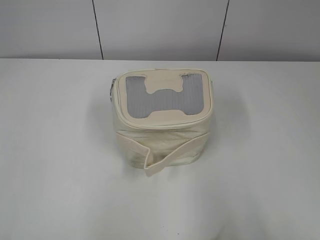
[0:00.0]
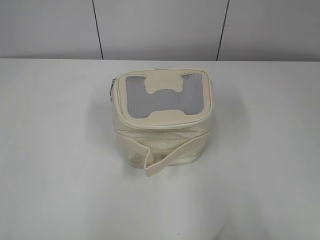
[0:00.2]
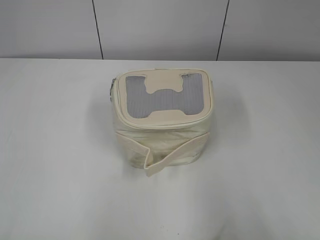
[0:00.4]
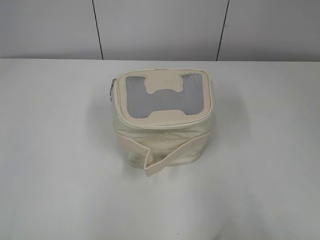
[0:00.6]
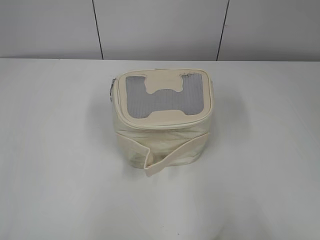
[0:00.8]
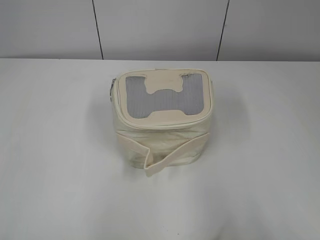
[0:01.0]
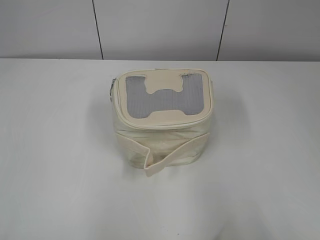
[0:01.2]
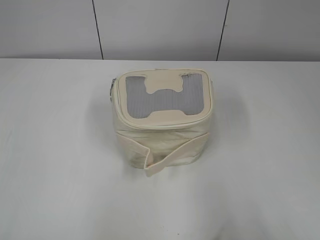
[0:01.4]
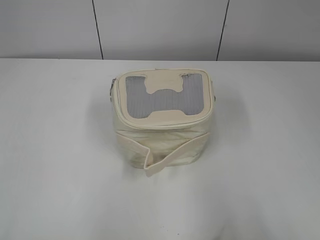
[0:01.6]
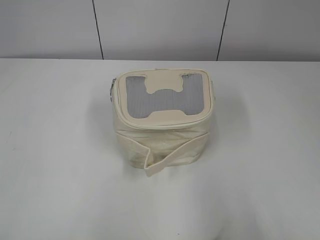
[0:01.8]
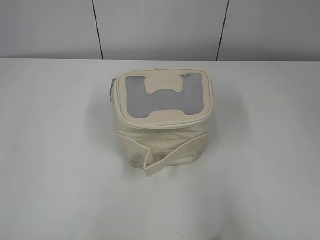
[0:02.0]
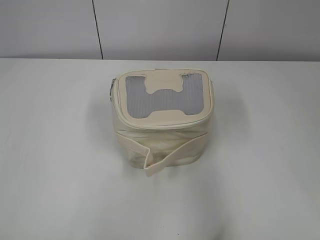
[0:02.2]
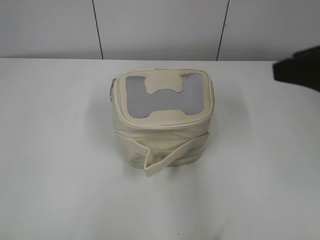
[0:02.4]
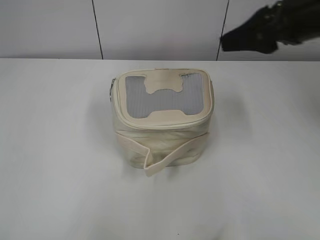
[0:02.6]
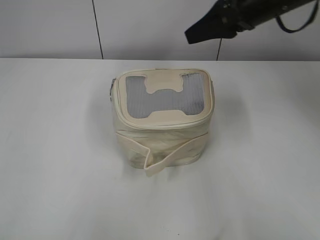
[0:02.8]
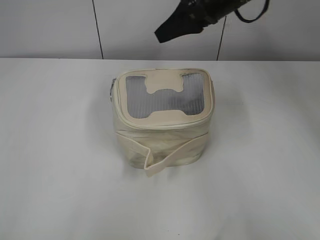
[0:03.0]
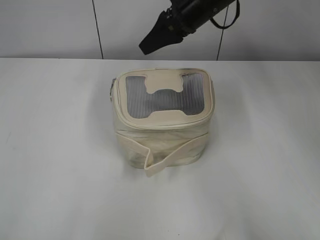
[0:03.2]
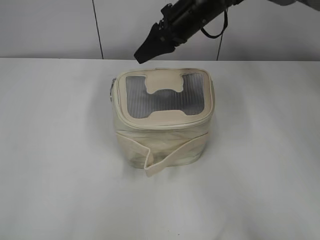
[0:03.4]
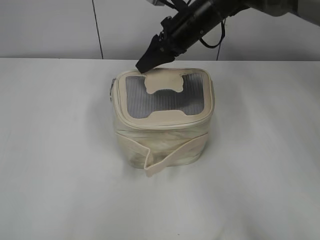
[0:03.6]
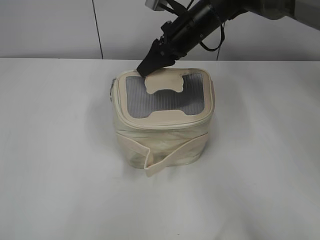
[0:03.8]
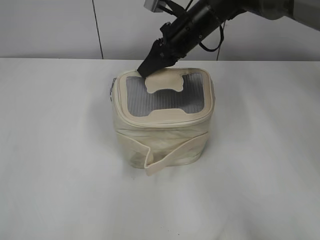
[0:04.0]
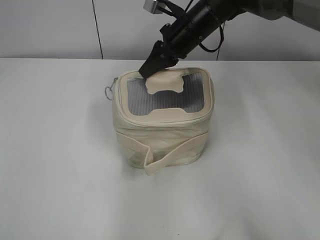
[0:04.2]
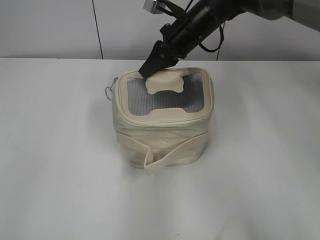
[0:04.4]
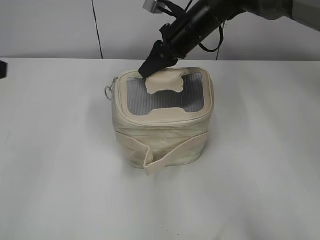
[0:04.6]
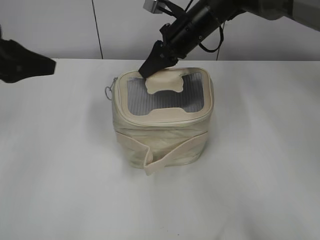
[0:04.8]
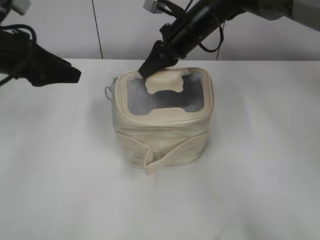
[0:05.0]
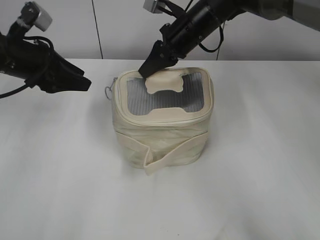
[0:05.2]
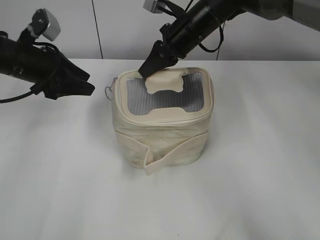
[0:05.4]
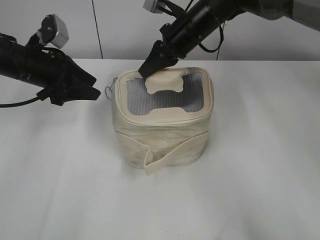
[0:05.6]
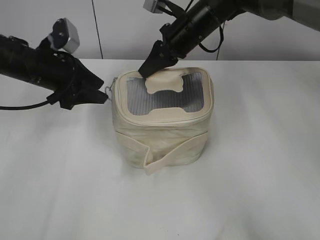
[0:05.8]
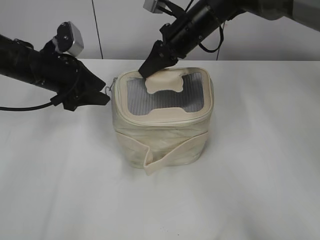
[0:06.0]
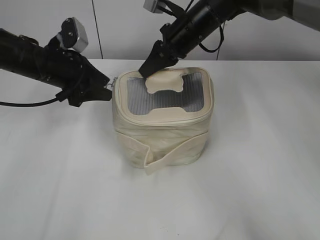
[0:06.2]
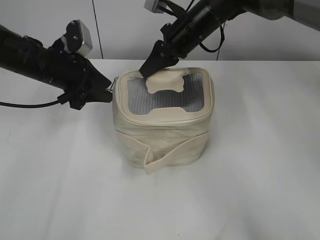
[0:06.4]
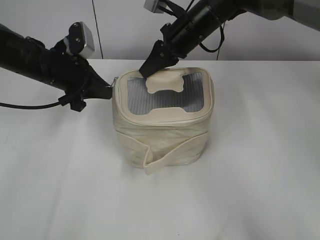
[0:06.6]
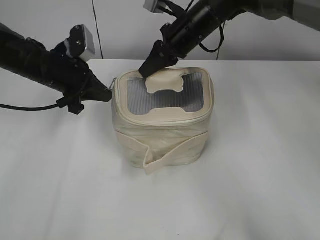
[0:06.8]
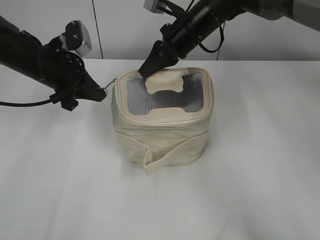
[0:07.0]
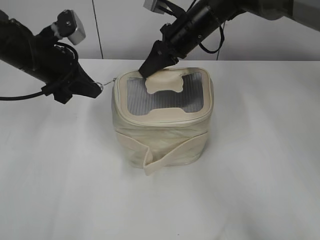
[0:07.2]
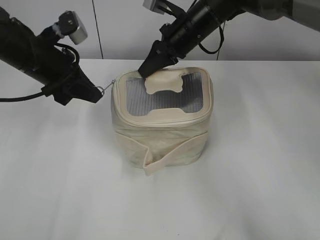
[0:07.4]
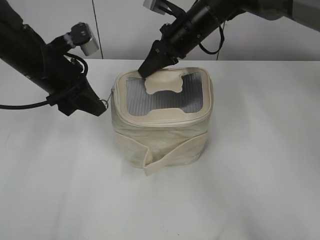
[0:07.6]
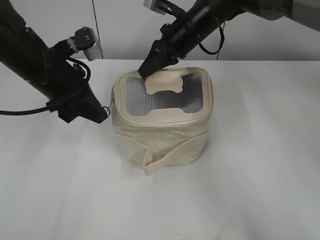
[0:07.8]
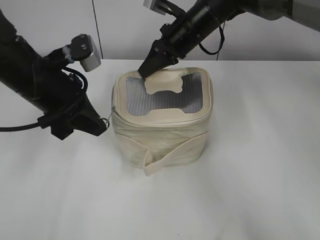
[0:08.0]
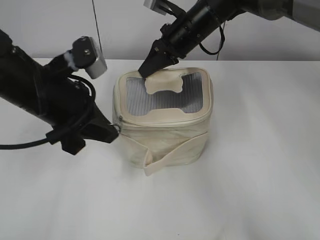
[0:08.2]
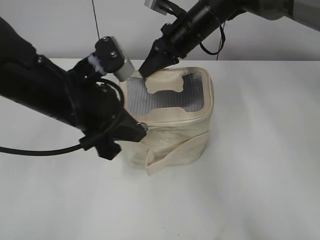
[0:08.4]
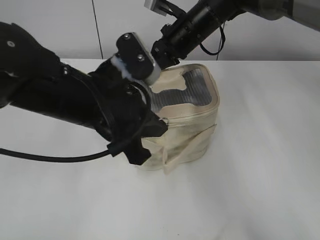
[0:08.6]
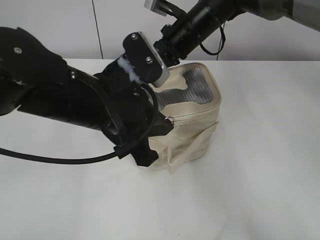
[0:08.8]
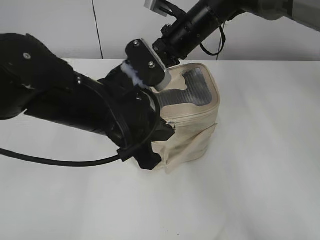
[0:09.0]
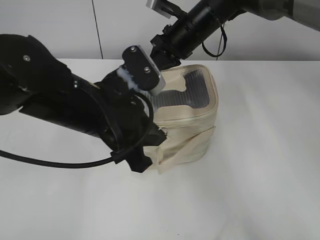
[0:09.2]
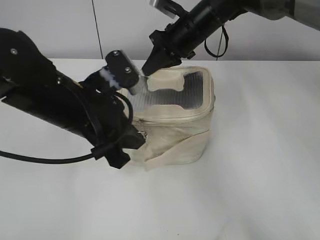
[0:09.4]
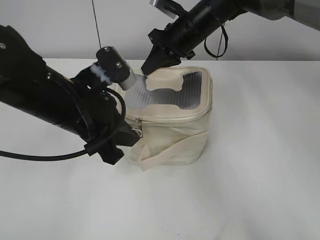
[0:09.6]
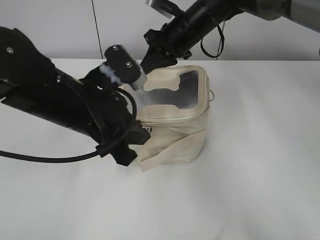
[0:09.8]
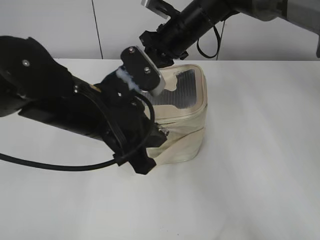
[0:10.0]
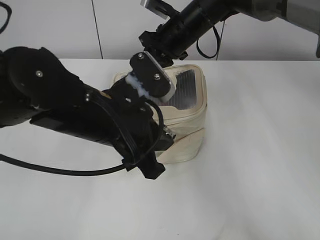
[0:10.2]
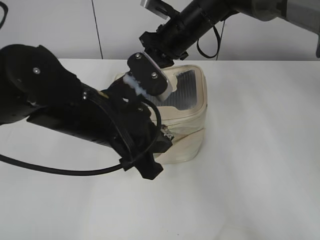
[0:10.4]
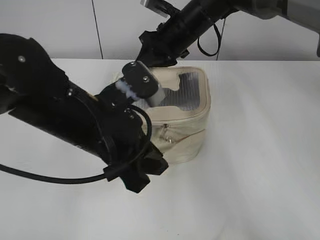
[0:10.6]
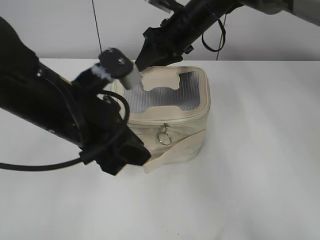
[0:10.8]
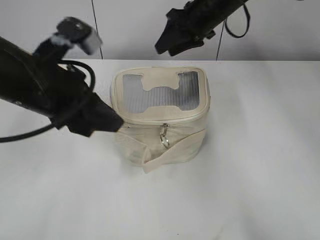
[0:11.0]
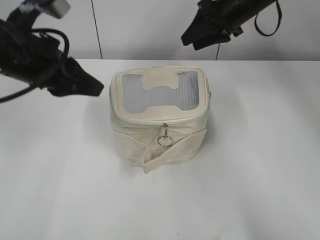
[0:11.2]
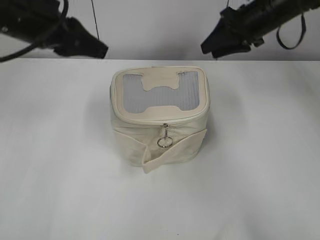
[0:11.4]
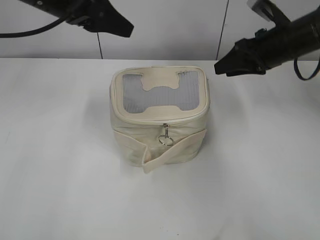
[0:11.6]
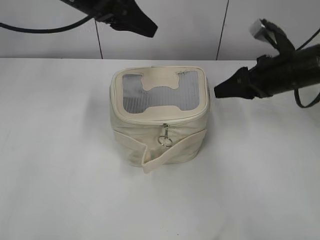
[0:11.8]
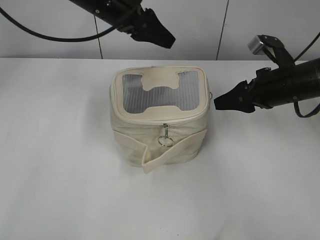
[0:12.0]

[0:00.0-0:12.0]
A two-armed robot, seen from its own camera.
Step, 0:00.0 to 0:10.4: Zip up the bag with your left hand.
0:01.6 to 0:03.0: The right gripper moves forward and to the left, about 50 cm.
0:03.0 to 0:04.4: The right gripper goes some 10 cm downward and to the left, and closes. The left gripper is displaced forward by approximately 10 cm.
0:04.4 to 0:06.0: The left gripper shifts about 30 cm forward and downward.
0:06.0 to 0:07.6: The left gripper moves about 5 cm, and closes up.
0:07.6 to 0:09.0: The left gripper moves backward and to the right, roughly 15 cm.
0:09.0 to 0:10.4: The grippers make only small movements.
0:10.4 to 0:12.0: The left gripper goes about 20 cm forward, and opens. Meanwhile the right gripper moves to the right and backward, approximately 20 cm, and opens its fingers.

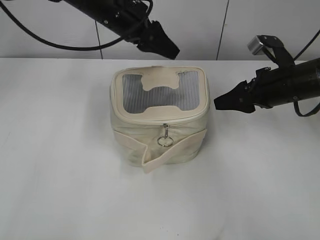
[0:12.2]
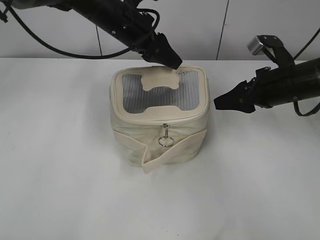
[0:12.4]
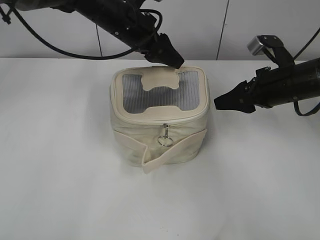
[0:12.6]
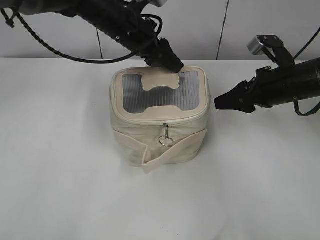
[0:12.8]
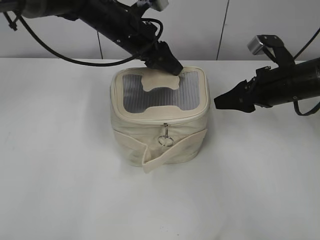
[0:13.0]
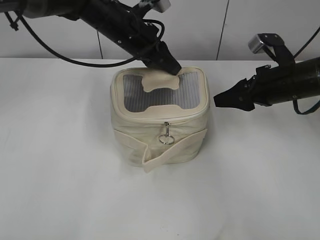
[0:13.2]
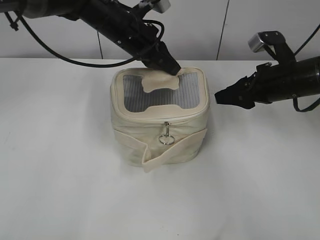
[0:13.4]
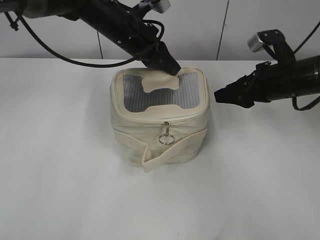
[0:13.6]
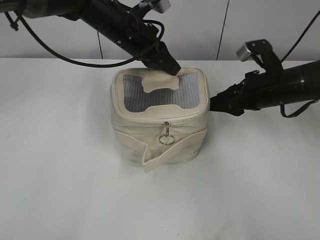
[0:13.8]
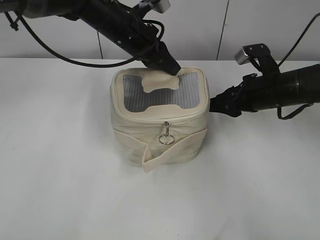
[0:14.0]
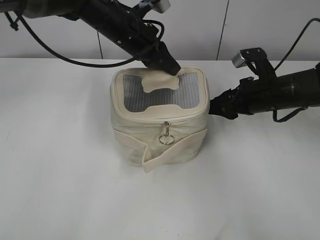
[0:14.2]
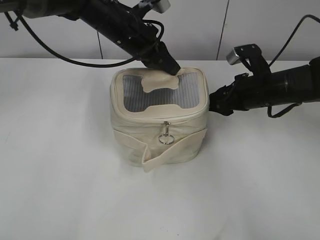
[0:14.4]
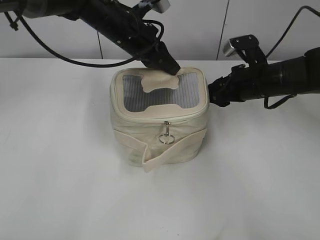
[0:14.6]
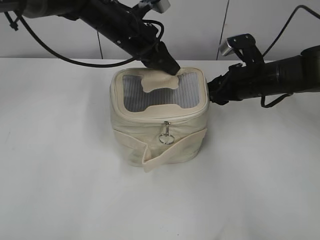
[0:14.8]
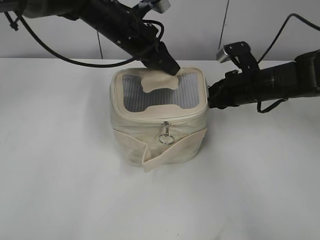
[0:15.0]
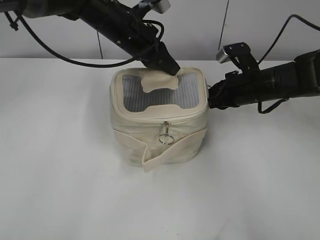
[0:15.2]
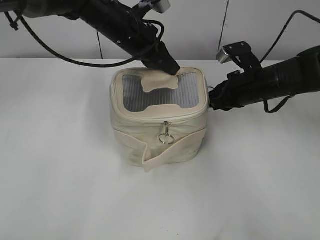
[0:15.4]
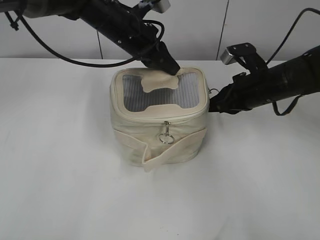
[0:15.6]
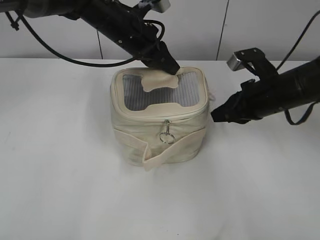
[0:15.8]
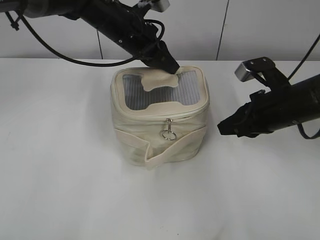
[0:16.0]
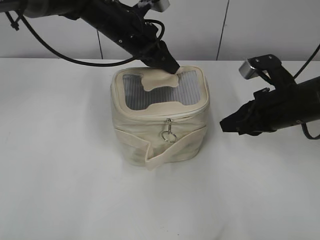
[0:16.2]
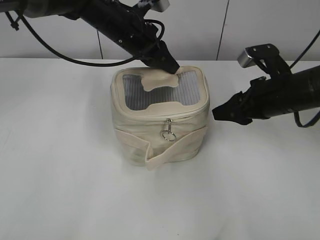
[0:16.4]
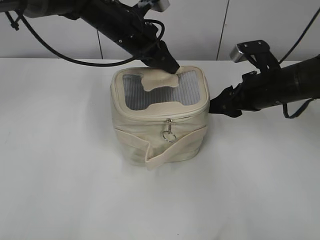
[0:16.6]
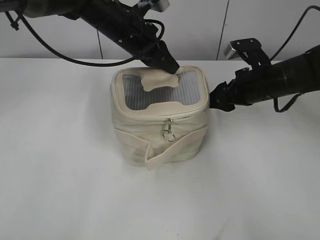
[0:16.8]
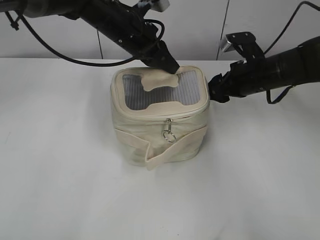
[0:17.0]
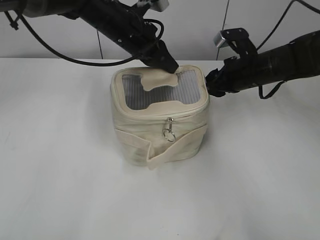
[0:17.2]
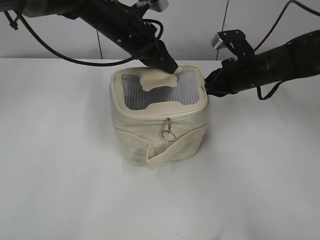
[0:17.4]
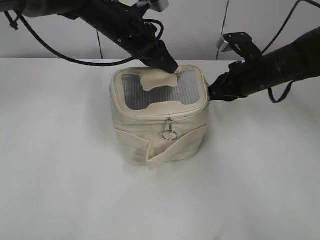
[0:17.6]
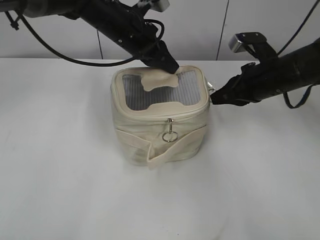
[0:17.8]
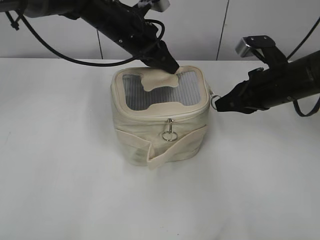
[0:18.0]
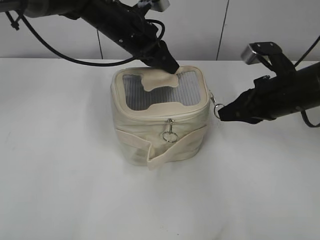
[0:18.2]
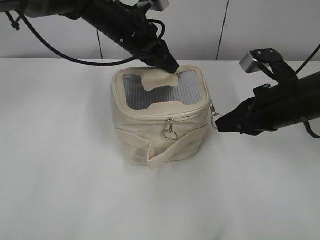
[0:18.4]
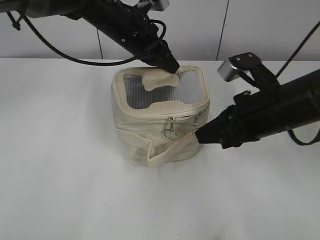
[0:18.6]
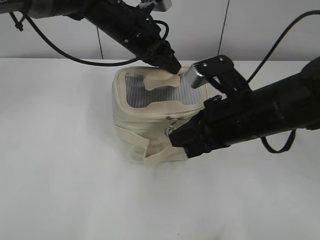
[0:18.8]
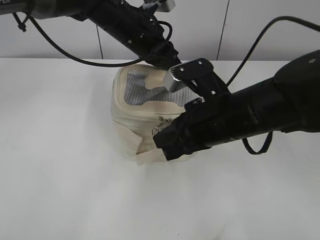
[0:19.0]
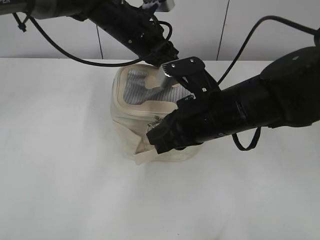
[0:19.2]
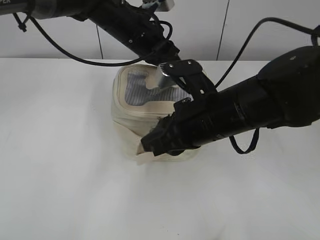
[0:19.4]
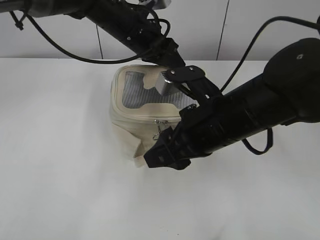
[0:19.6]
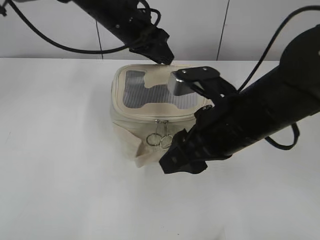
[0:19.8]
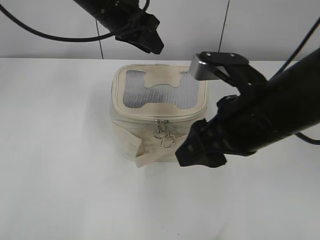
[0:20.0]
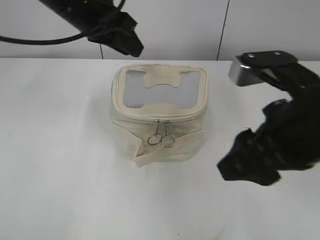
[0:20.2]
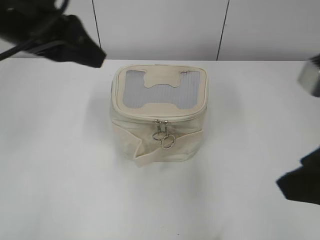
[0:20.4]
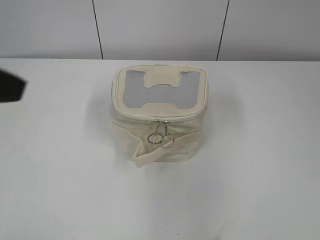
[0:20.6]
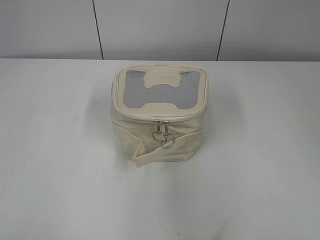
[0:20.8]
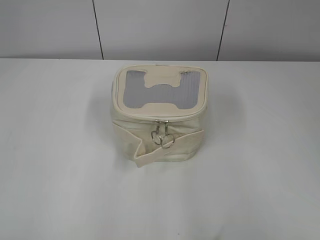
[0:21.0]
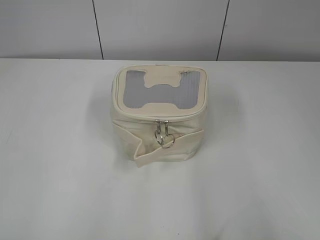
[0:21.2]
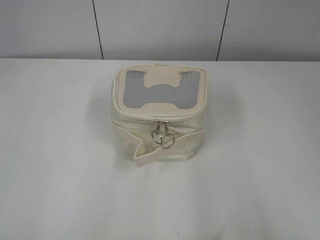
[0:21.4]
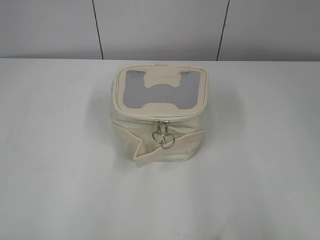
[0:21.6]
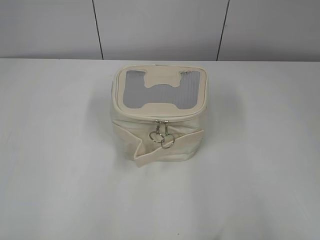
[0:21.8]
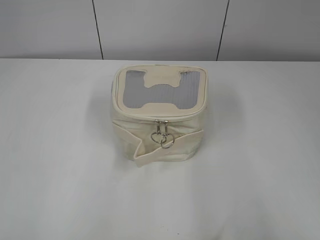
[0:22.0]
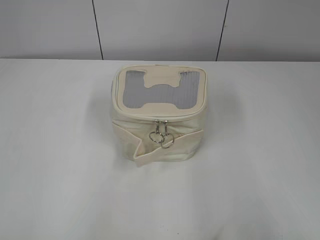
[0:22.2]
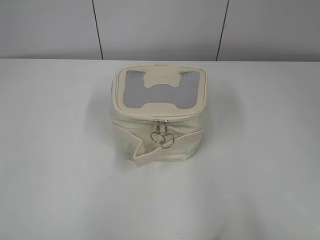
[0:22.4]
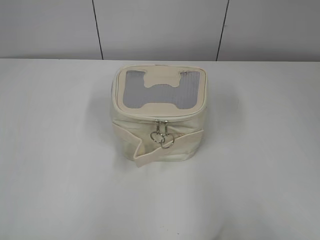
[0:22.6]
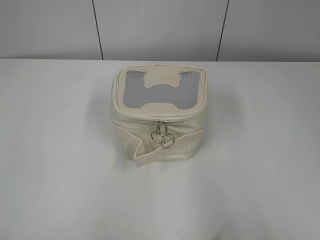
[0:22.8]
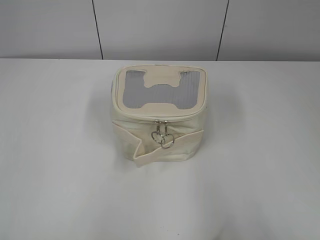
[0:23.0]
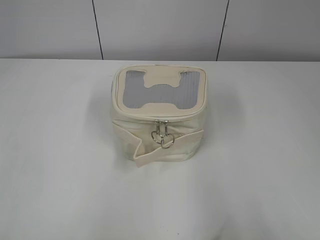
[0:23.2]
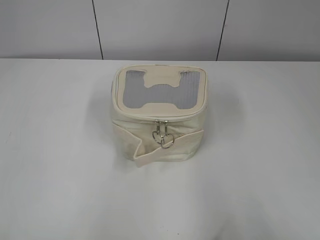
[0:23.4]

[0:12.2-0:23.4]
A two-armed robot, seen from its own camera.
Step, 0:12.2 to 0:19.2: Zip up the bag with your right hand.
Step, 0:19.6 to 0:19.8: Hold the bag with your left hand.
0:12.2 to 0:13.8: The left gripper closes its fingers.
0:13.8 to 0:15.4: The right gripper closes its fingers.
0:15.4 to 0:17.0: The right gripper moves about 10 cm backward and comes back, and opens up.
0:17.0 to 0:18.6: The right gripper goes approximately 10 cm backward, and closes up.
0:18.6 to 0:20.2: The left gripper moves upward and backward, approximately 10 cm, and opens. Meanwhile the right gripper moves backward and upward, some 10 cm, and opens up.
0:20.2 to 0:21.8: The left gripper shifts approximately 40 cm backward and to the left. The right gripper goes roughly 25 cm backward and to the right.
